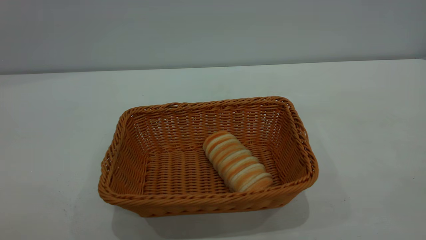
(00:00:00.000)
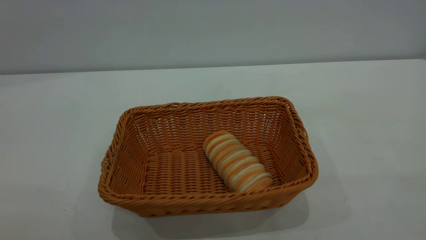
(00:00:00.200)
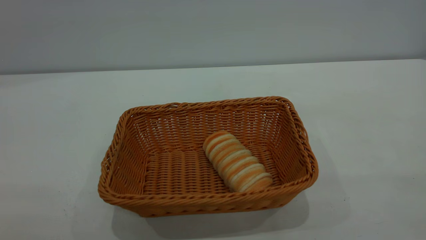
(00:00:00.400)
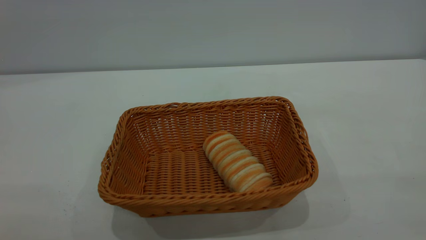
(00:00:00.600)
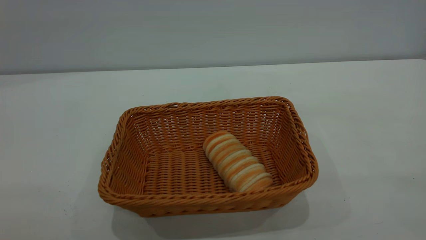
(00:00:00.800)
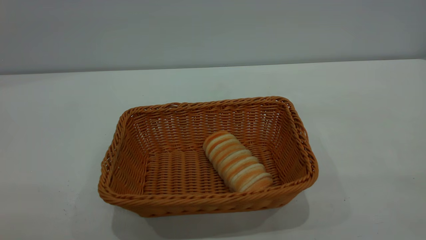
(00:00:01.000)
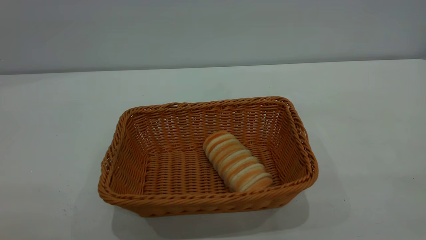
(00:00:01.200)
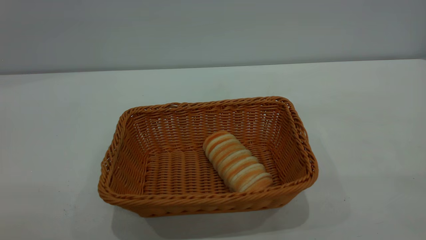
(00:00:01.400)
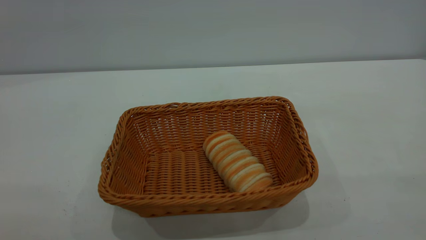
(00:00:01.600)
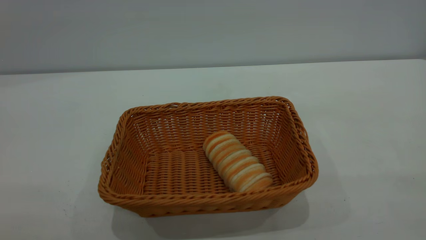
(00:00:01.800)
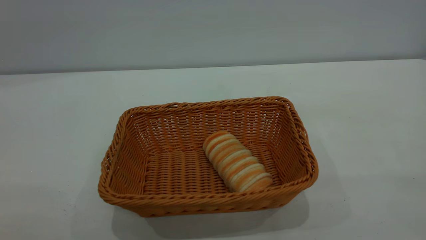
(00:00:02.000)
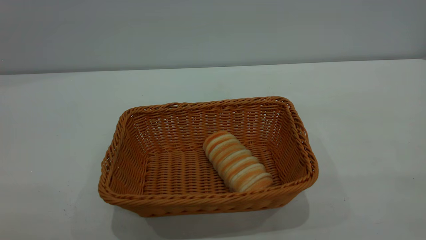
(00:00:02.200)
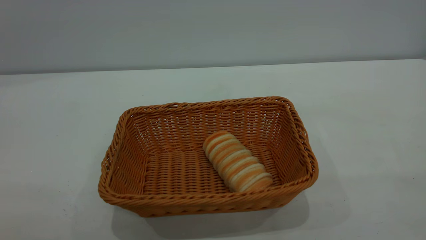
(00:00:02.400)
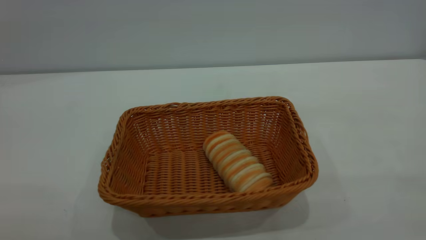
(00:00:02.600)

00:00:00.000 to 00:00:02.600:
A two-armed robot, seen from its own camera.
Task of the whole recording: One hand grasps the yellow basket and places it in the middle of the table, while the other hand picks up the long bread and puts it into the yellow basket.
00:00:01.200 to 00:00:02.600: Both grippers stay about where they are.
